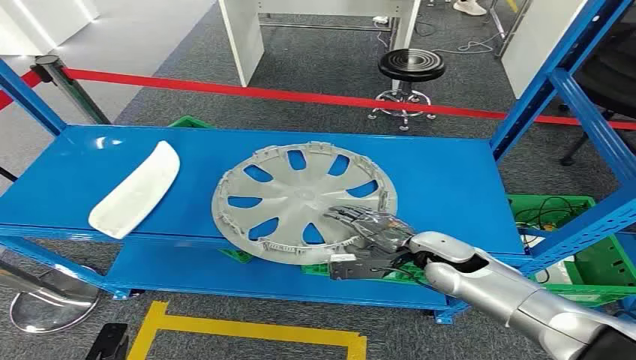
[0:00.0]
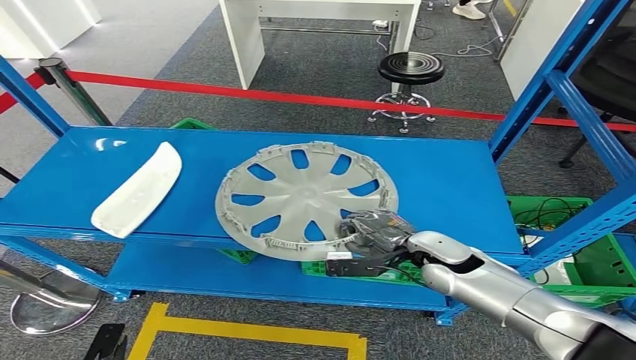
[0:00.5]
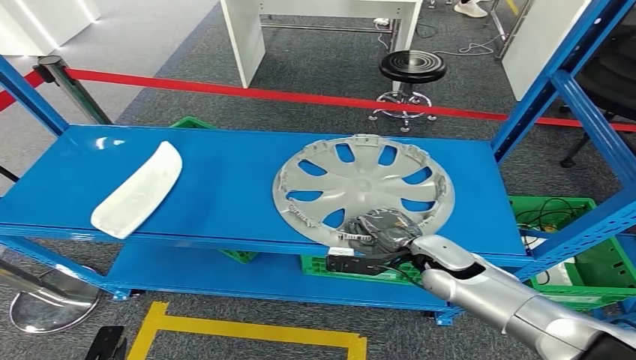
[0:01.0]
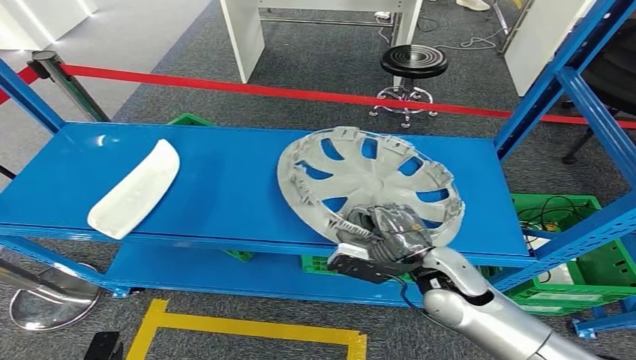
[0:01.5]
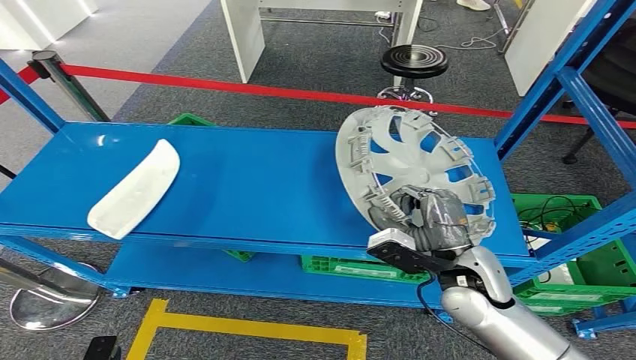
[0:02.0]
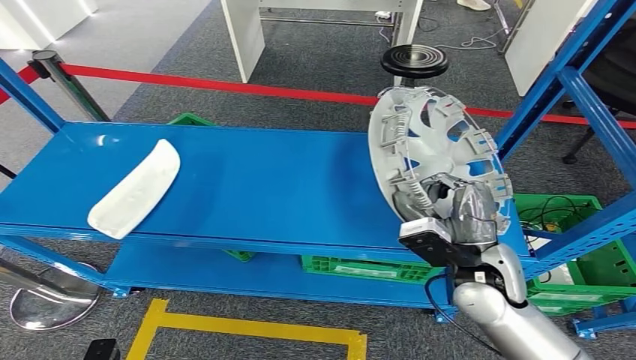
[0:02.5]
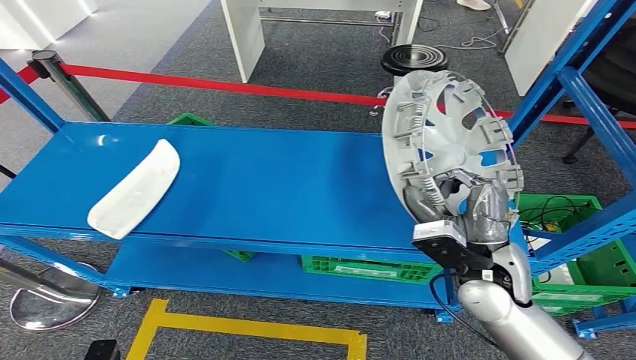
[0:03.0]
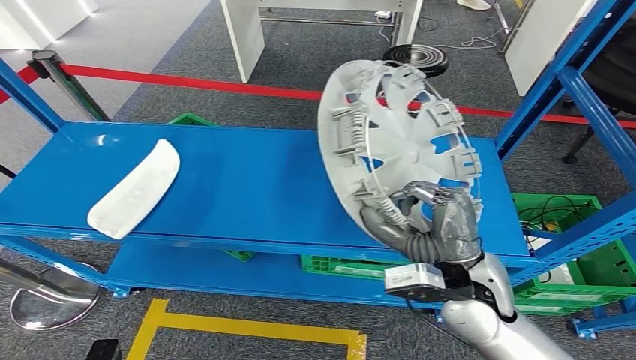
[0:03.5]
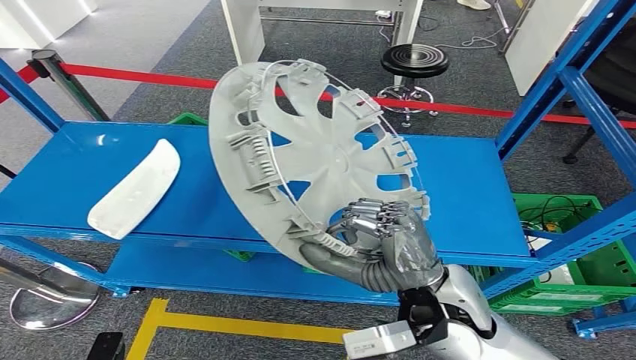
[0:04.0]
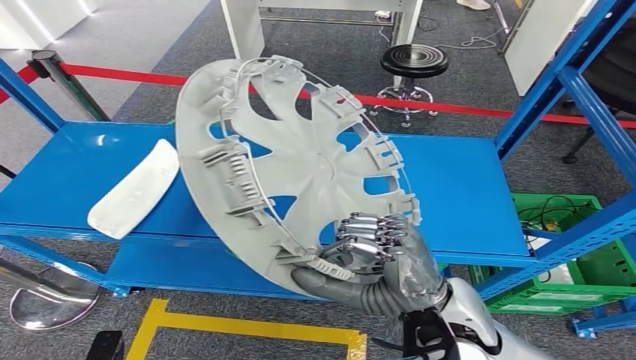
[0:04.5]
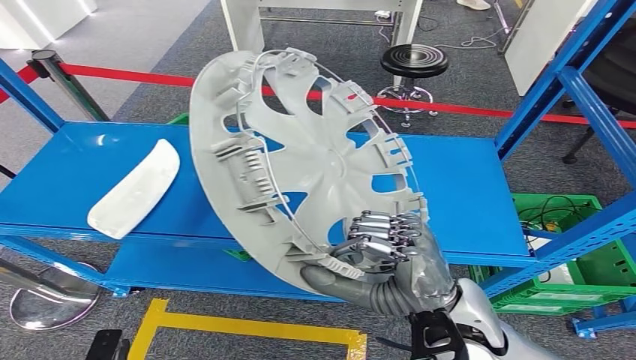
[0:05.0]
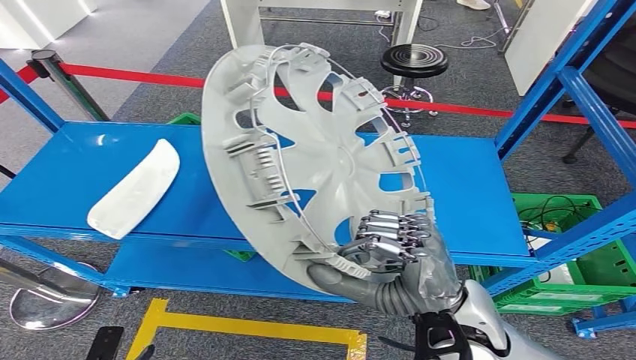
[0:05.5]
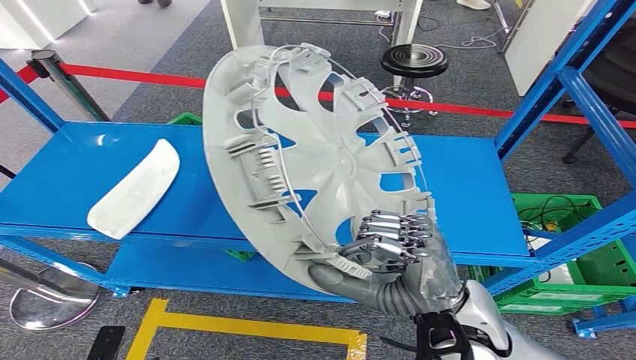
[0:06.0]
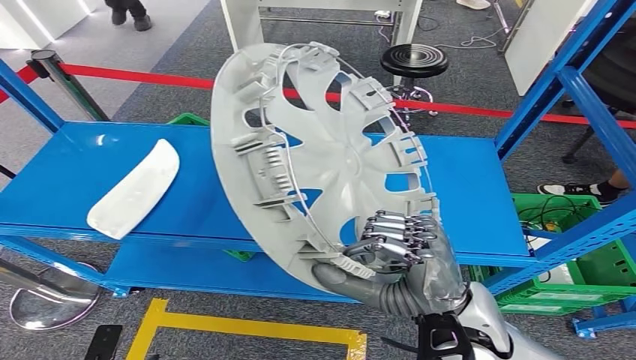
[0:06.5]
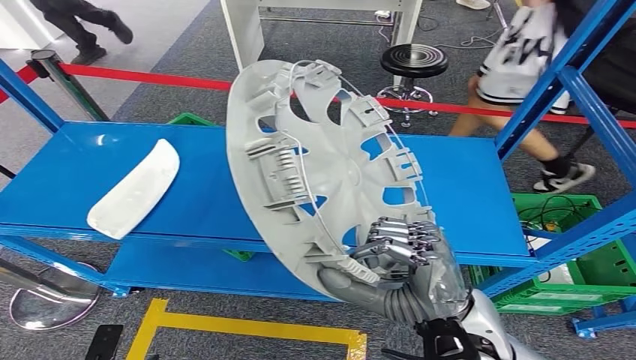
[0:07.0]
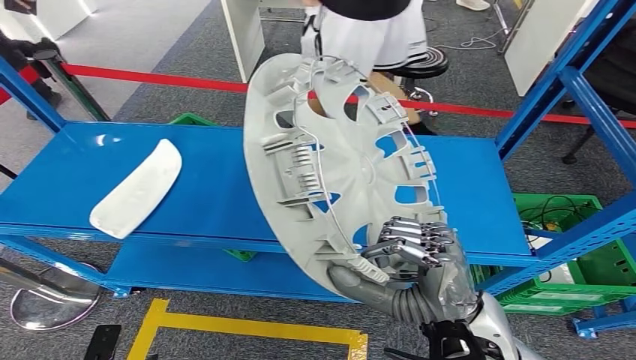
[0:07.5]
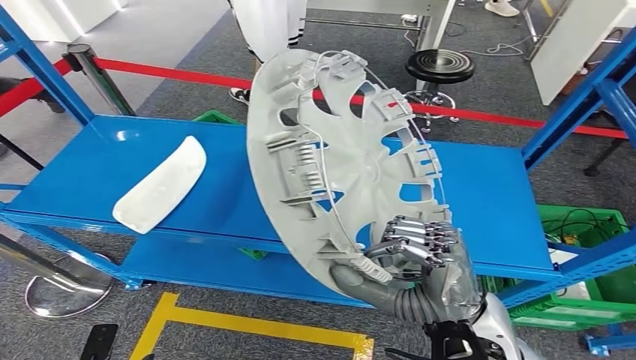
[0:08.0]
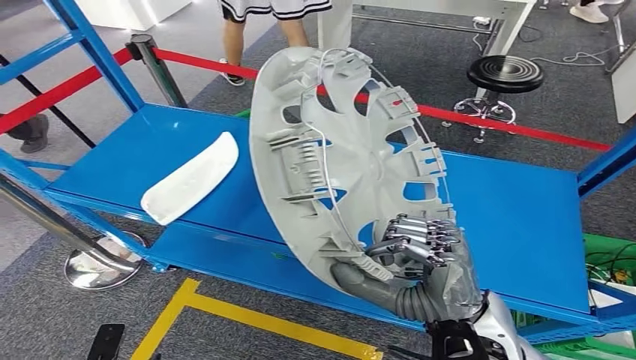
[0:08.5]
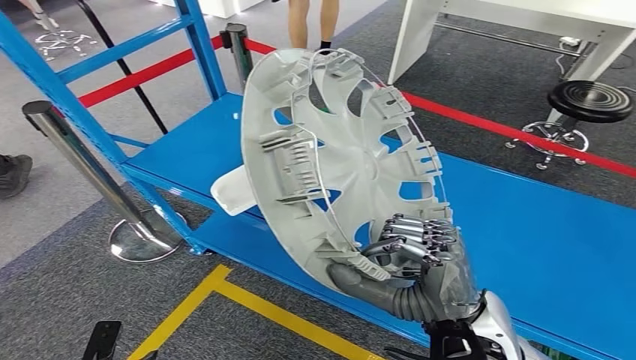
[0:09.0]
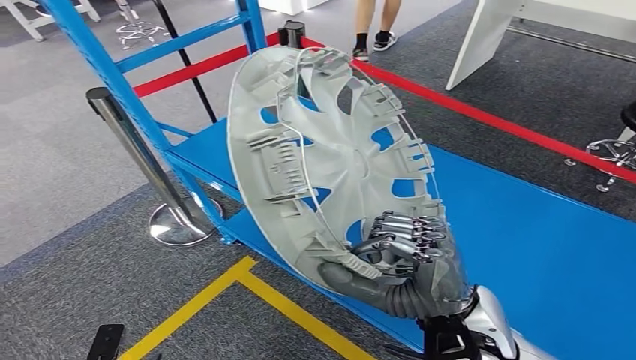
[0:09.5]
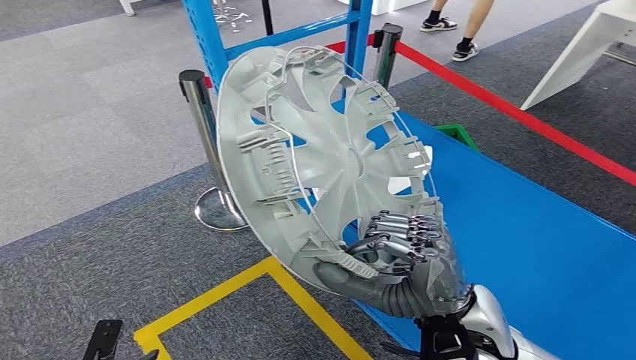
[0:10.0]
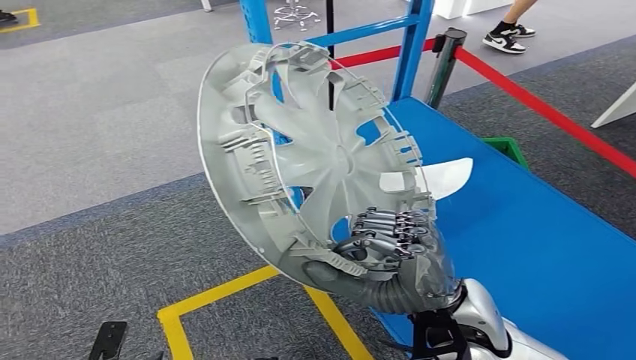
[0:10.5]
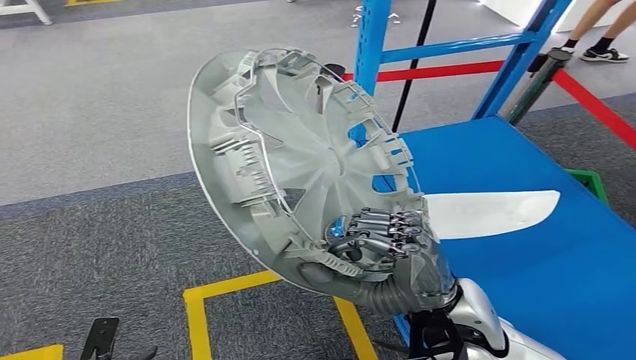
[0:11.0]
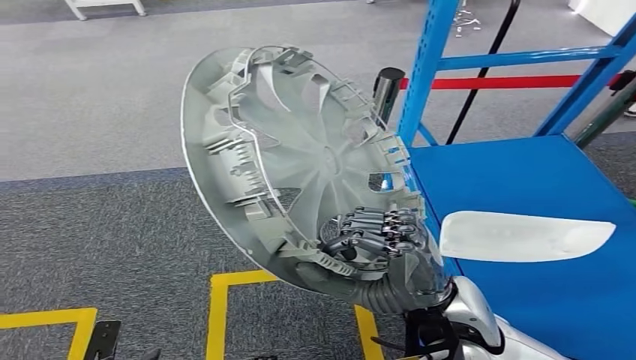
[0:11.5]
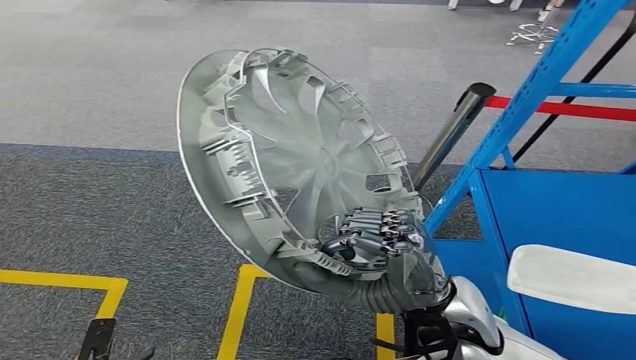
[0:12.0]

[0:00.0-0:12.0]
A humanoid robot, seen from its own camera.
Step, 0:00.0 to 0:04.0: Pick up the small component from the shelf.
0:04.0 to 0:06.0: The hands make only small movements.

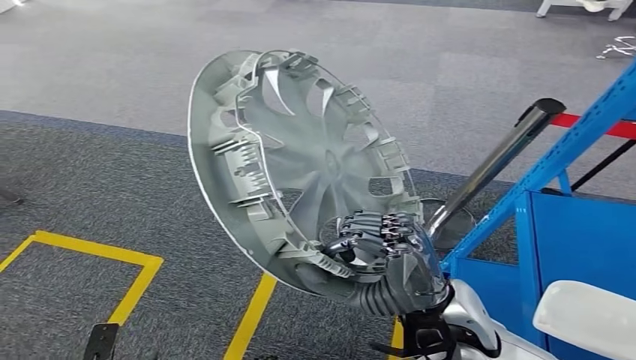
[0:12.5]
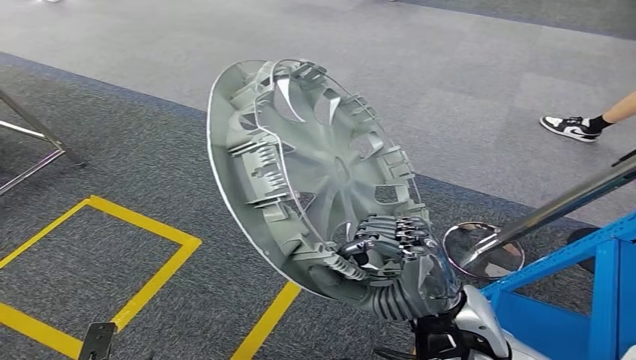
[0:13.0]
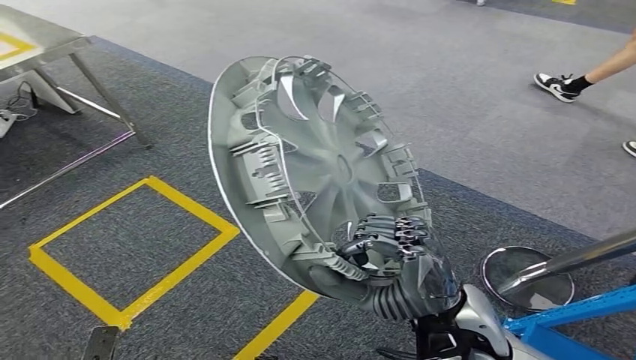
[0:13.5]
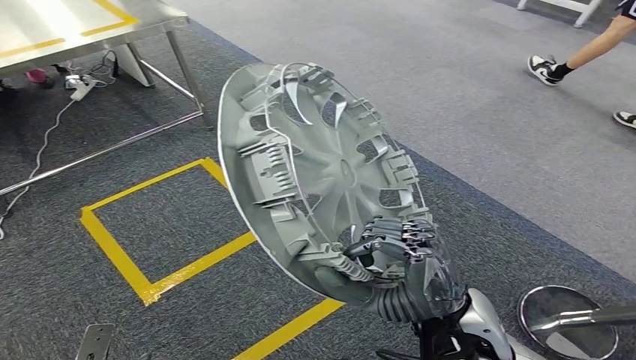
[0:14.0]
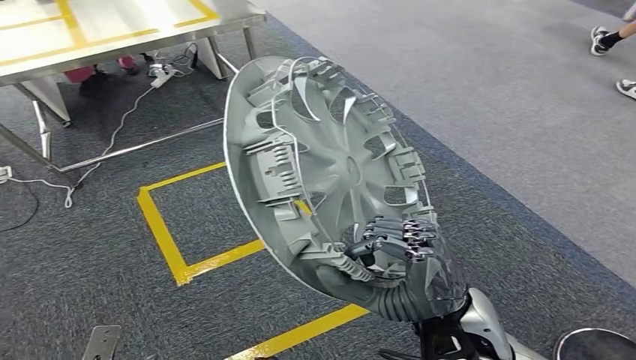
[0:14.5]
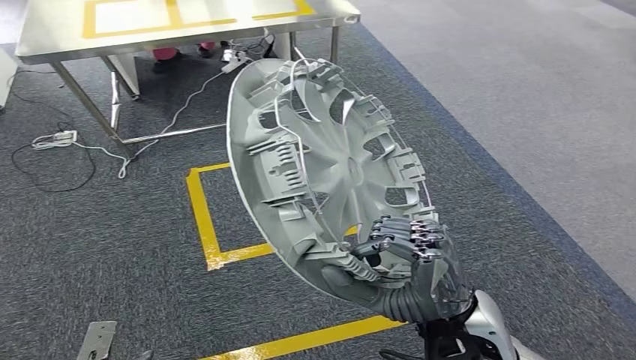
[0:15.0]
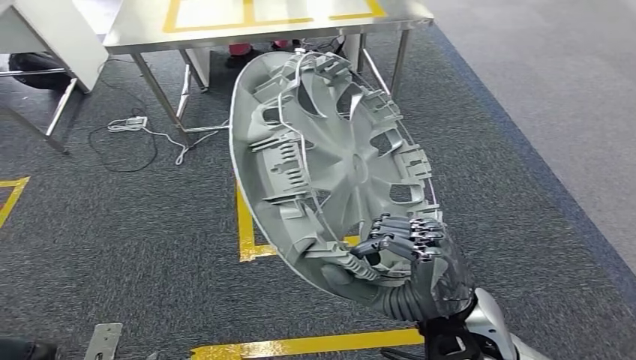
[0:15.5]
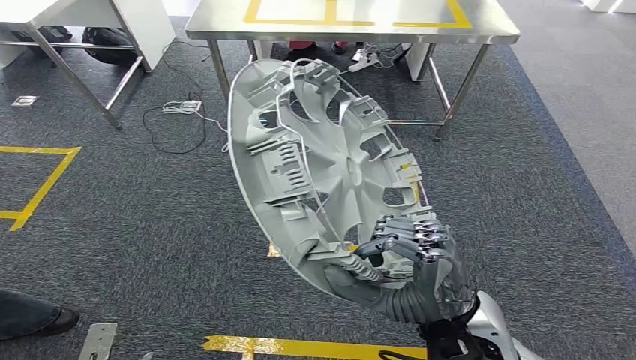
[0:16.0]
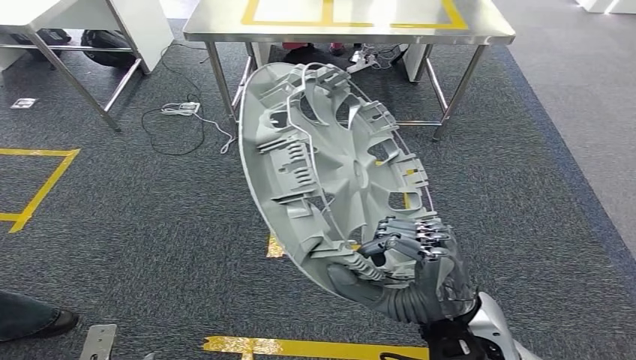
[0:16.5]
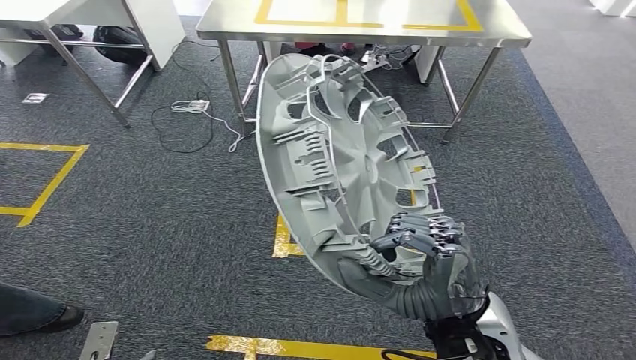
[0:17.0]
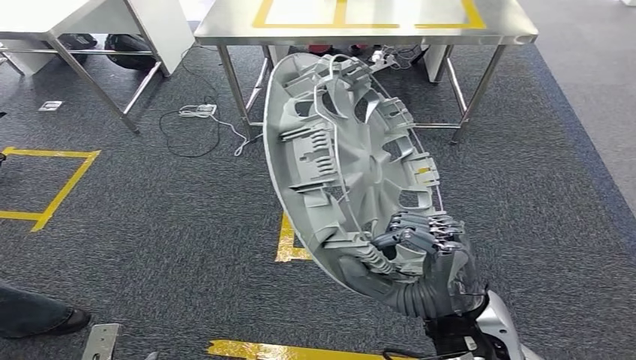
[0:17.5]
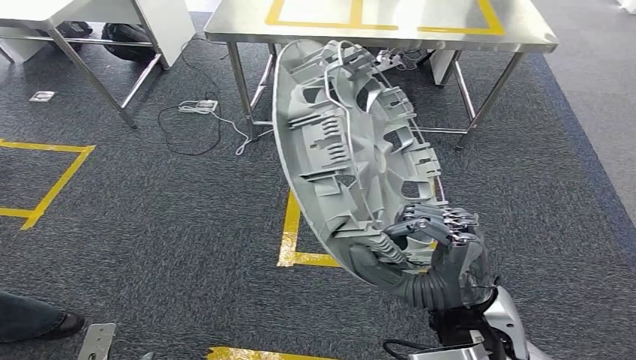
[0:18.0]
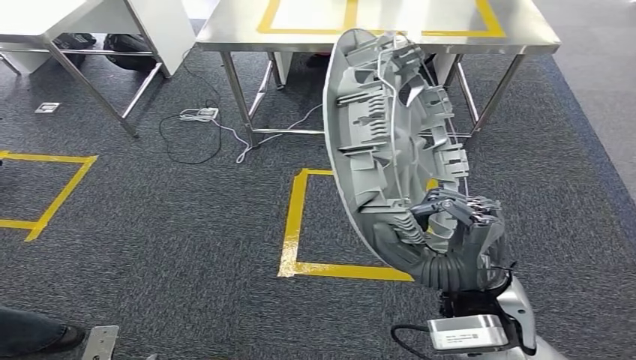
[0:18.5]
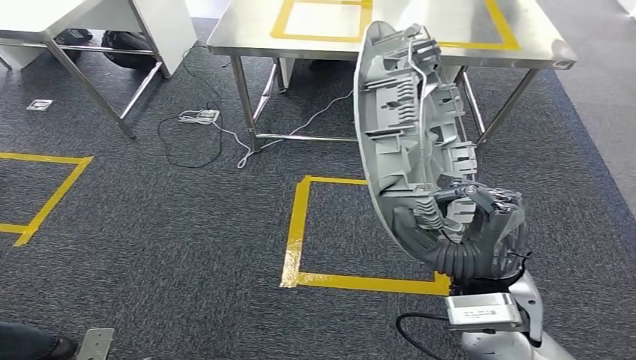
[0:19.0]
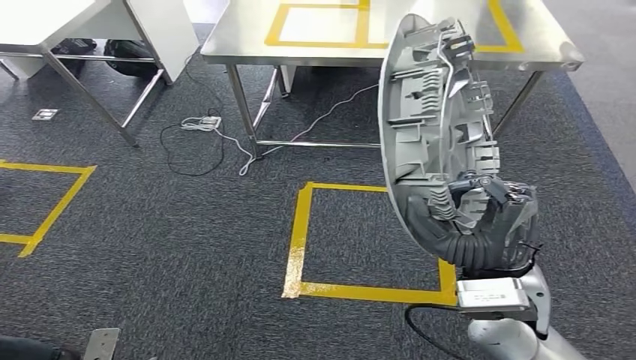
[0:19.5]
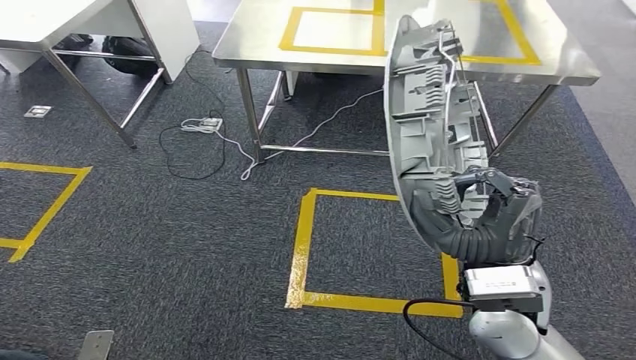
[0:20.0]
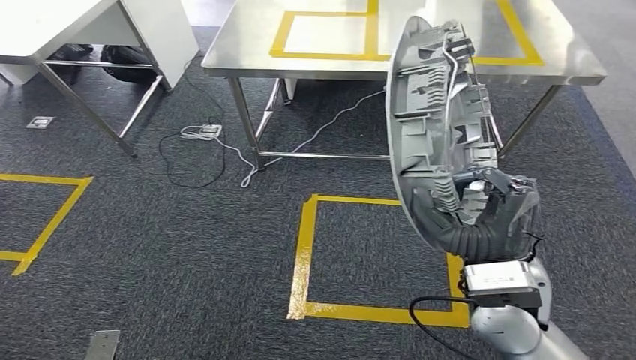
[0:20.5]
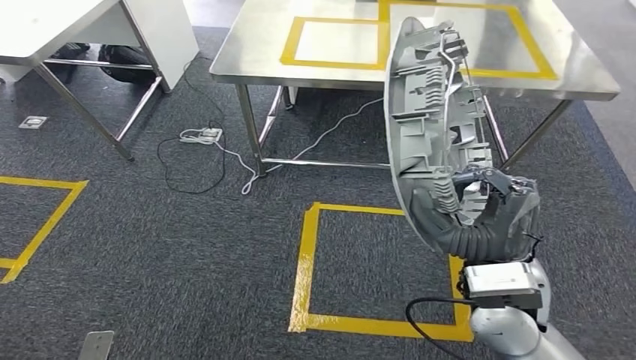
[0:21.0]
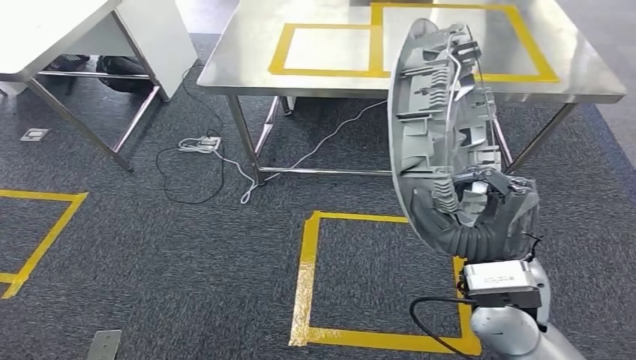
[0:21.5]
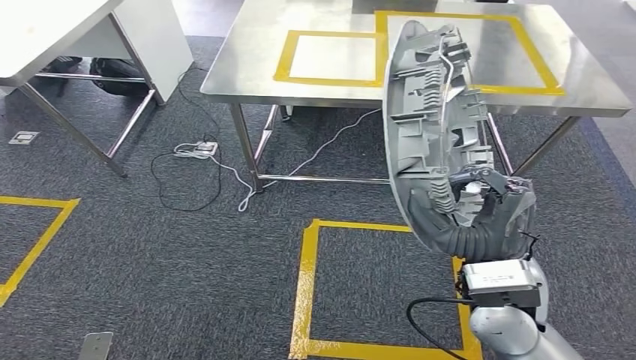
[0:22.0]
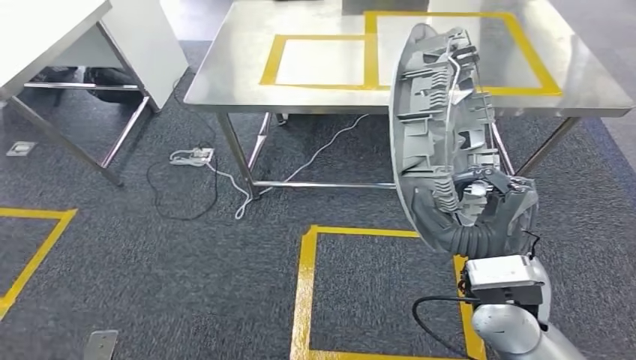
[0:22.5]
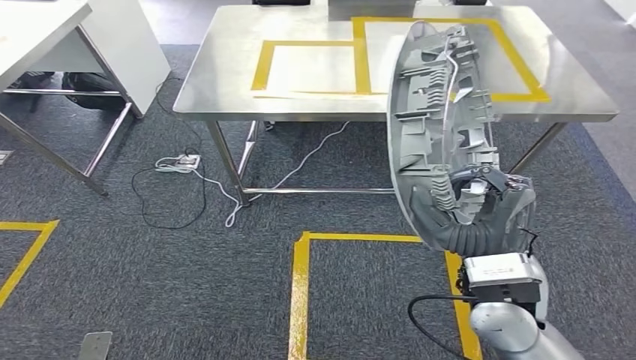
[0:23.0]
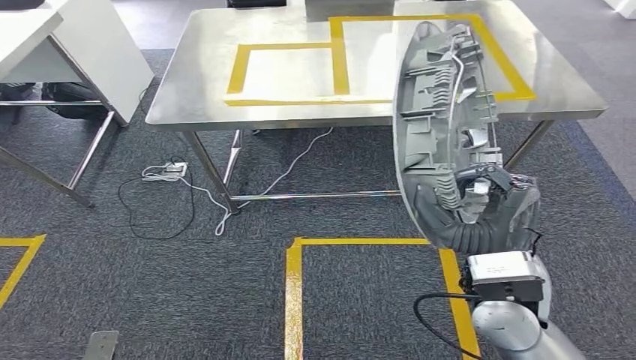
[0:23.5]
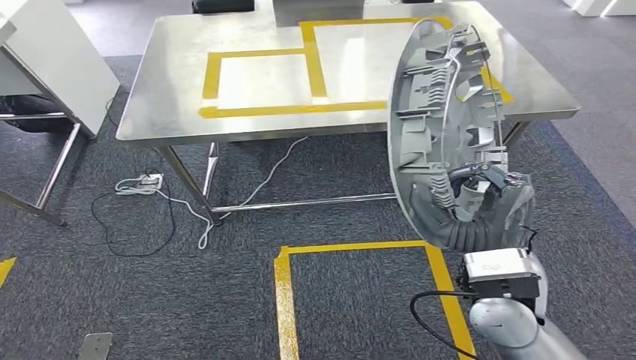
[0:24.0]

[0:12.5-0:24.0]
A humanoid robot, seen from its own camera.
Step, 0:12.5 to 0:21.5: Move the small component to the workbench.
